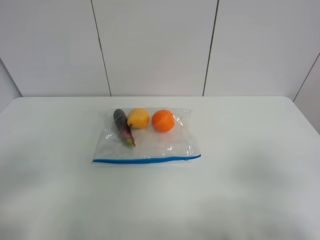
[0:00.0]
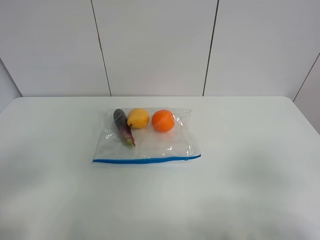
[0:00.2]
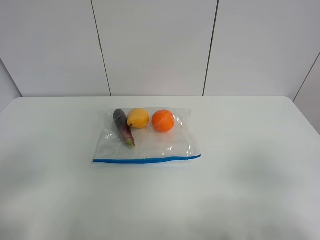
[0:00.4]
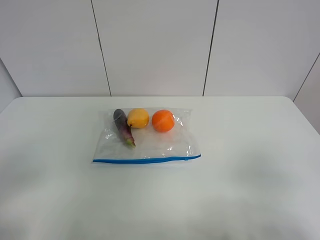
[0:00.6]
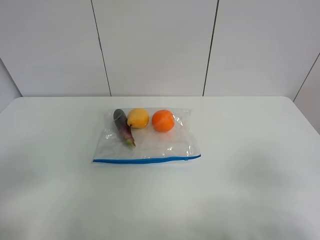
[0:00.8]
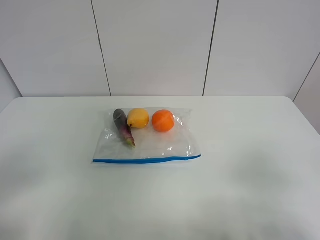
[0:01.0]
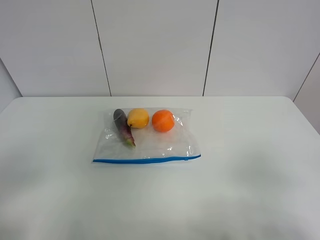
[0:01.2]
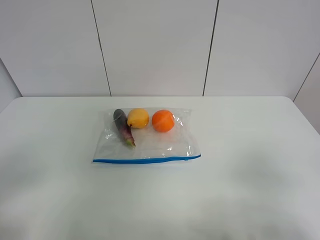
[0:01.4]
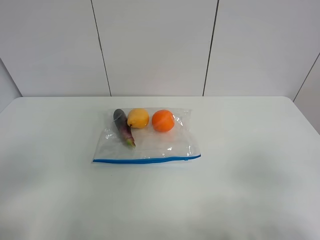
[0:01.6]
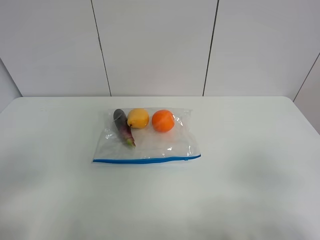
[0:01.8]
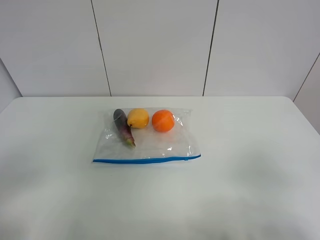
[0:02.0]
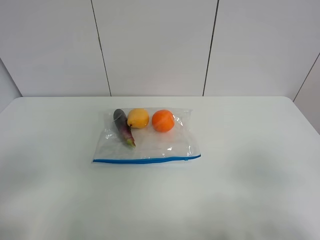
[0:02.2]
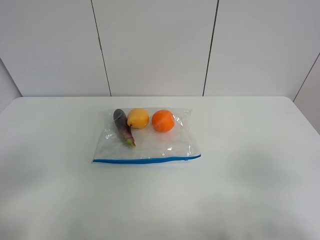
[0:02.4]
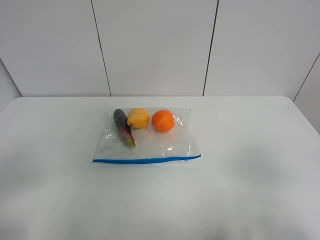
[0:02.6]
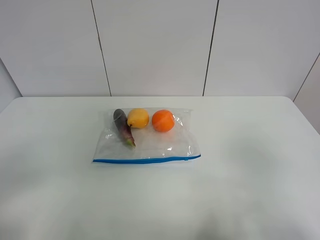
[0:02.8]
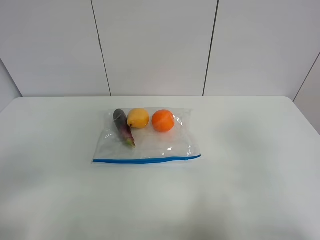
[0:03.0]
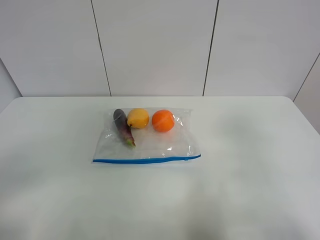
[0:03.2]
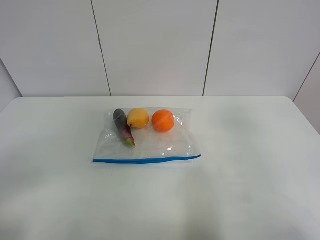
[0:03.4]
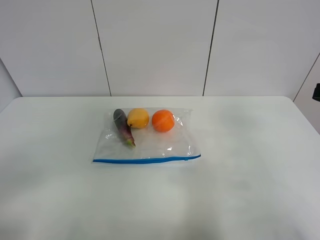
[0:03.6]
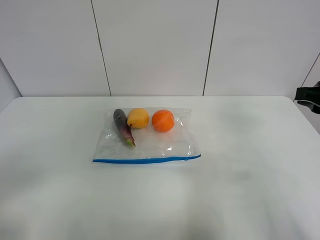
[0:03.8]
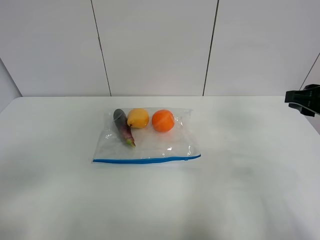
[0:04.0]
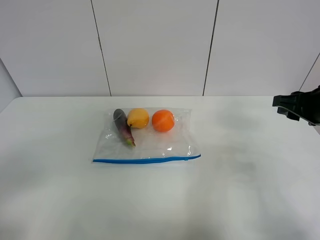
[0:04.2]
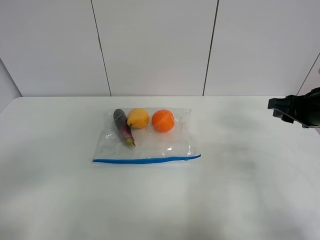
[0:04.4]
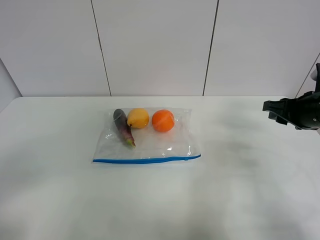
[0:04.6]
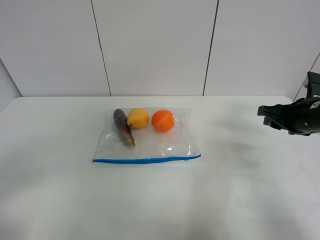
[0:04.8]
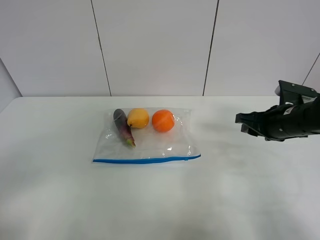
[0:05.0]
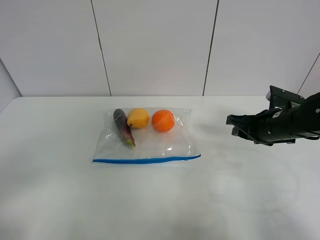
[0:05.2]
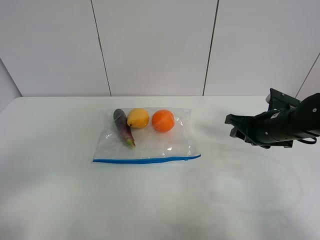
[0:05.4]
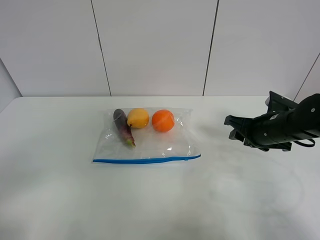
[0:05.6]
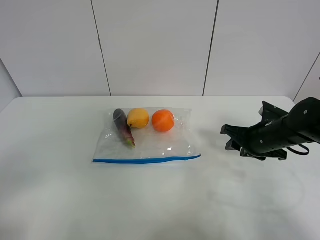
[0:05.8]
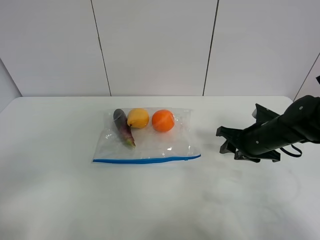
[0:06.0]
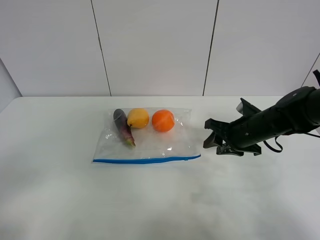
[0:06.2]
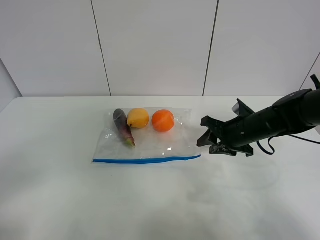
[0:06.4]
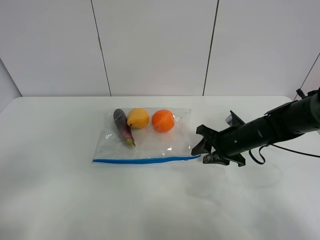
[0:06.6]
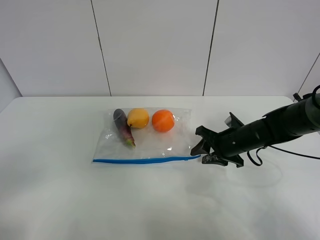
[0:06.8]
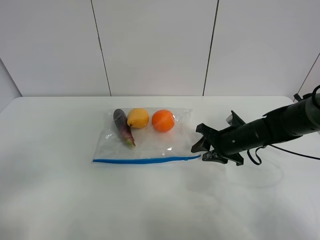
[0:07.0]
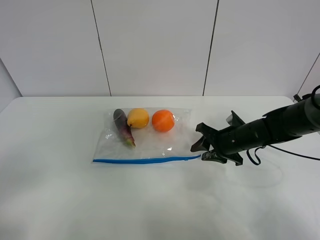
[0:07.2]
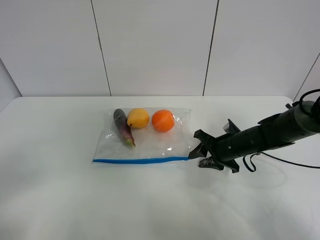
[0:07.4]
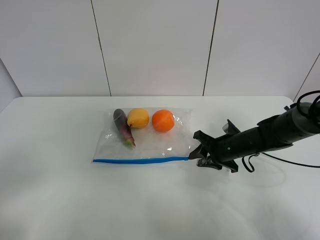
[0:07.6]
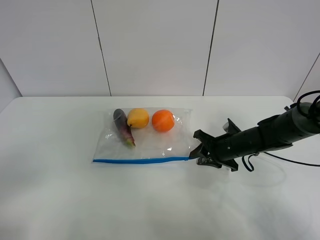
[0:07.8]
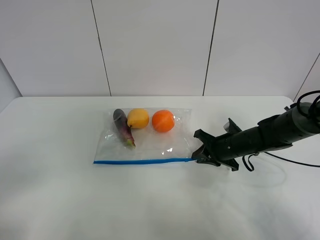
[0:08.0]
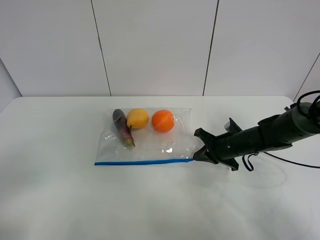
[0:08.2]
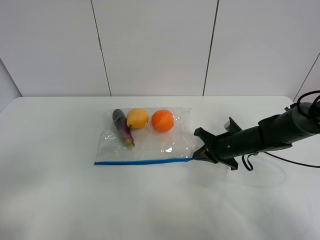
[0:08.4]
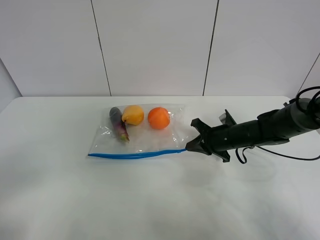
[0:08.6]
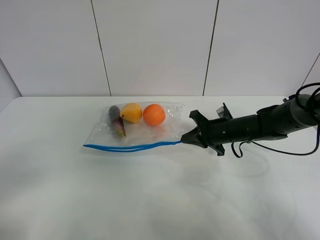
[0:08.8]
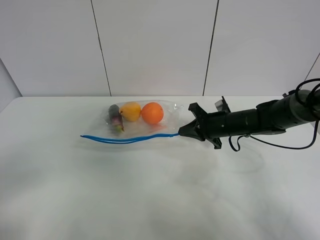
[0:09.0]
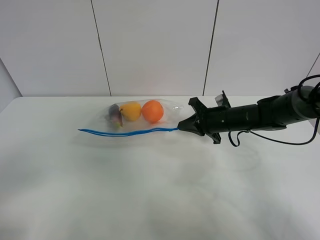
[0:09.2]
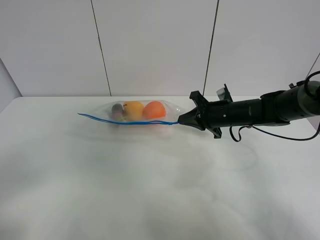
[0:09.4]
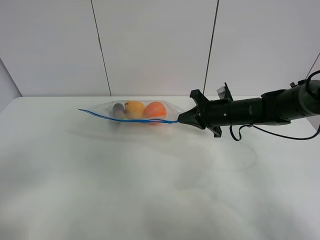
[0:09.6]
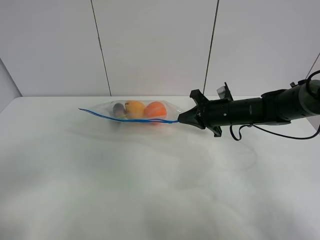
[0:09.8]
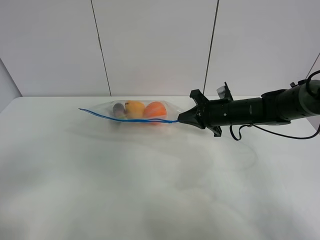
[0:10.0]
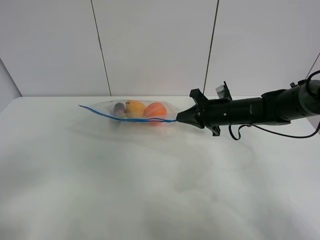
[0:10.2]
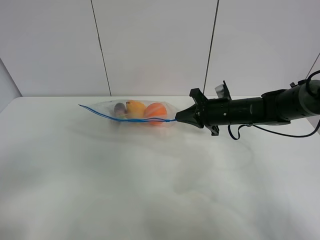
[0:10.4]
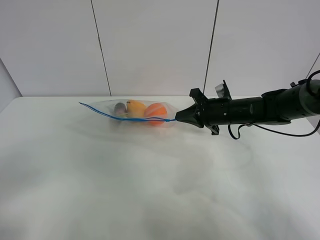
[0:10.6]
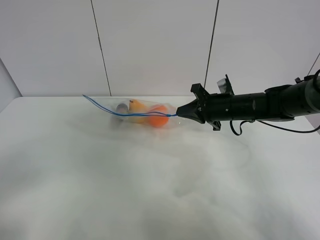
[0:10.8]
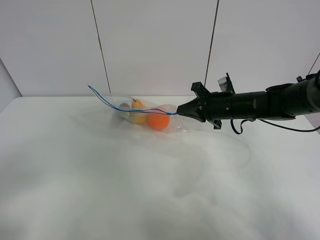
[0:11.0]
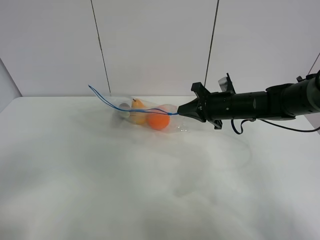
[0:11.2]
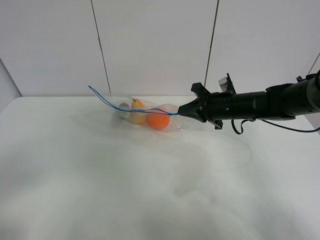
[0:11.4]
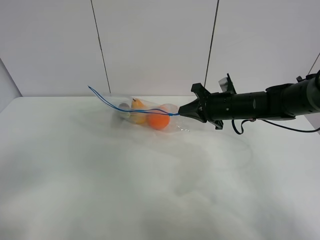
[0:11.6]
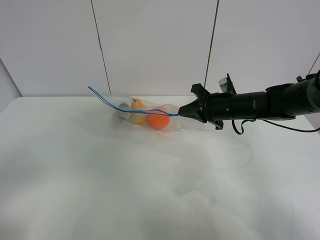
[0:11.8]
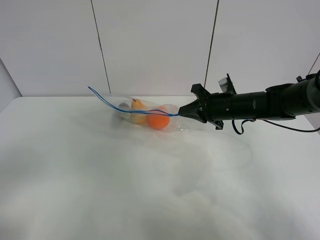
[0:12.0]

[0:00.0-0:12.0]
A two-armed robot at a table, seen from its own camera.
Step, 0:00.0 to 0:08.2: Grasp the fruit bag with right gripper.
Step, 0:08.4 to 0:10.8: Lift the fruit bag with your right gripper.
0:00.0 to 0:01.6: Both grippers stay about where they are.
0:03.0 to 0:04.4: The right gripper moves forward and downward, roughly 20 cm.
0:04.4 to 0:06.0: The right gripper heads downward and to the left, covering roughly 10 cm.
0:06.0 to 0:07.6: The right gripper is displaced downward by about 5 cm.
0:07.6 to 0:09.0: The right gripper shifts by about 5 cm, and closes up.
0:09.0 to 0:12.0: There are only small adjustments of the grippers.

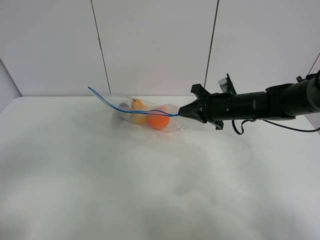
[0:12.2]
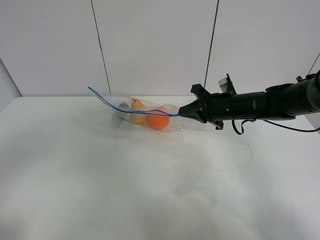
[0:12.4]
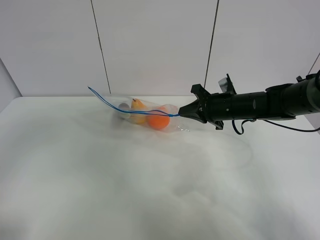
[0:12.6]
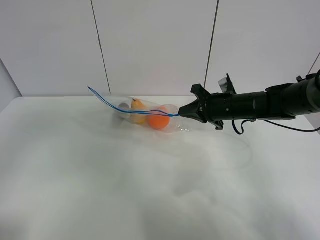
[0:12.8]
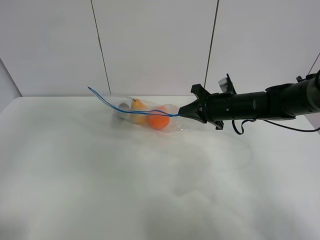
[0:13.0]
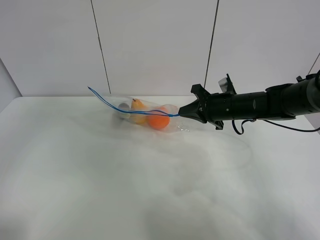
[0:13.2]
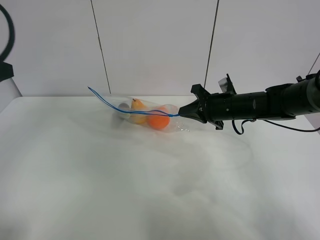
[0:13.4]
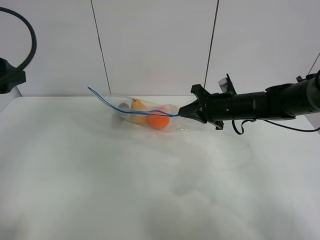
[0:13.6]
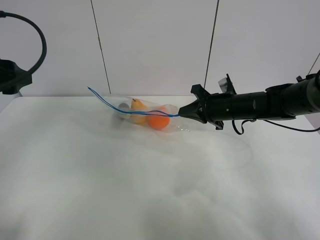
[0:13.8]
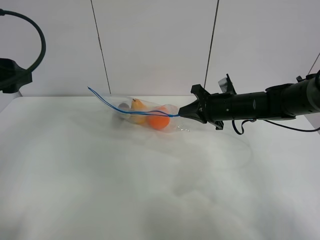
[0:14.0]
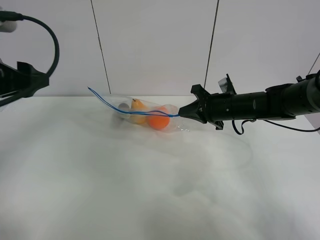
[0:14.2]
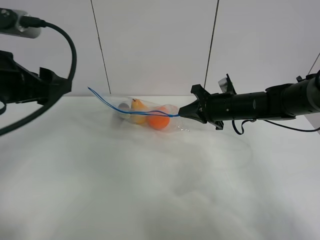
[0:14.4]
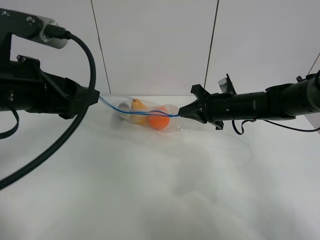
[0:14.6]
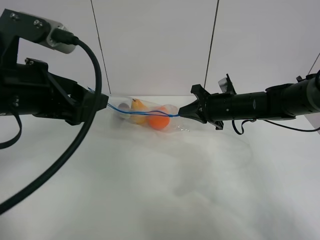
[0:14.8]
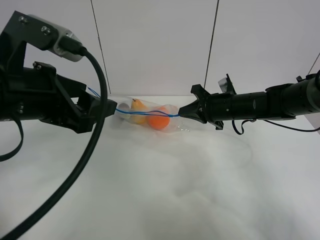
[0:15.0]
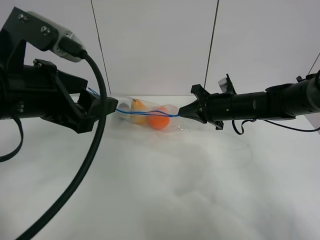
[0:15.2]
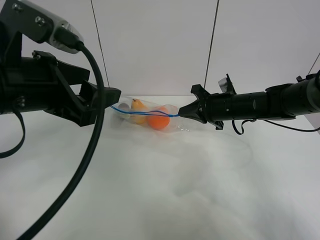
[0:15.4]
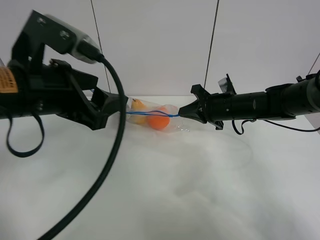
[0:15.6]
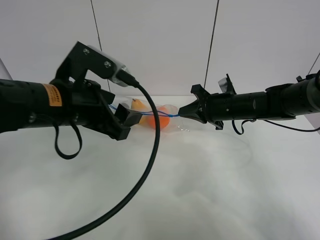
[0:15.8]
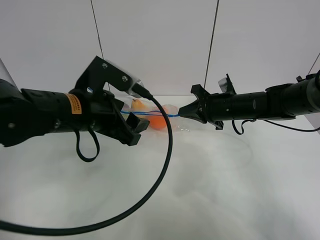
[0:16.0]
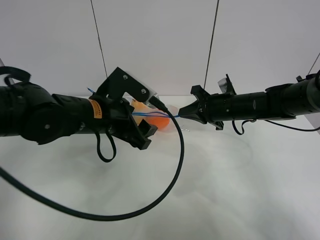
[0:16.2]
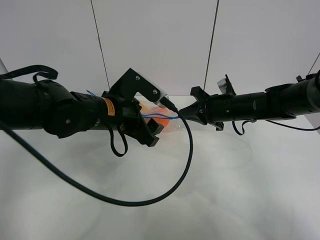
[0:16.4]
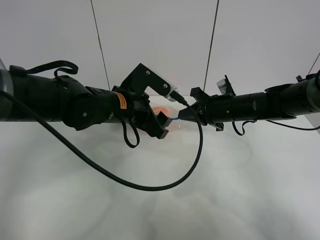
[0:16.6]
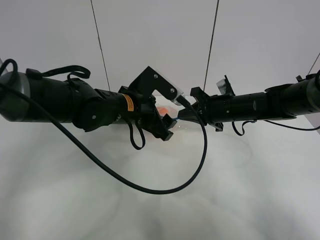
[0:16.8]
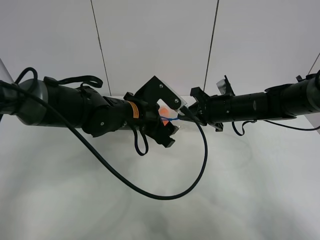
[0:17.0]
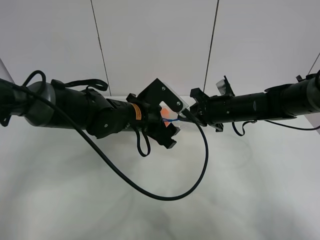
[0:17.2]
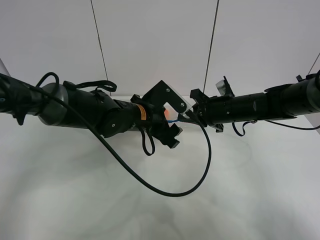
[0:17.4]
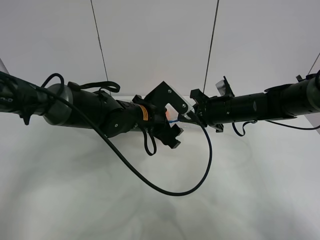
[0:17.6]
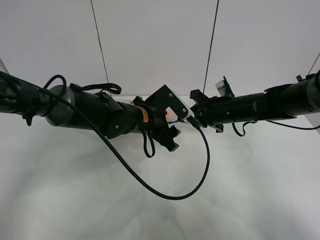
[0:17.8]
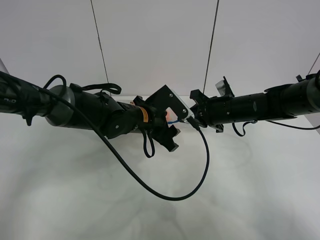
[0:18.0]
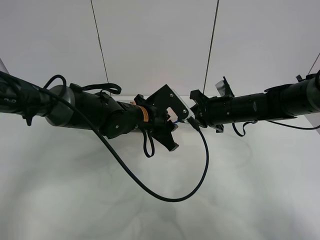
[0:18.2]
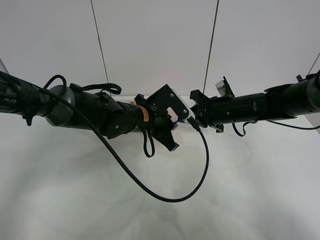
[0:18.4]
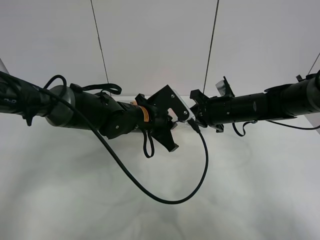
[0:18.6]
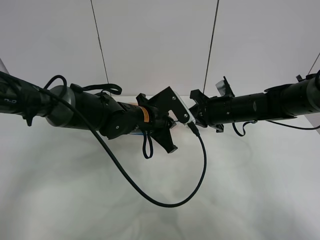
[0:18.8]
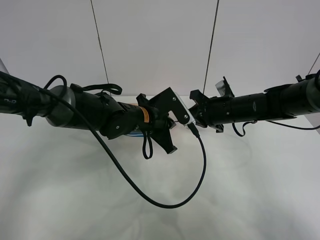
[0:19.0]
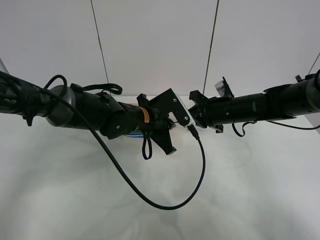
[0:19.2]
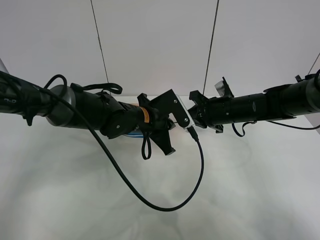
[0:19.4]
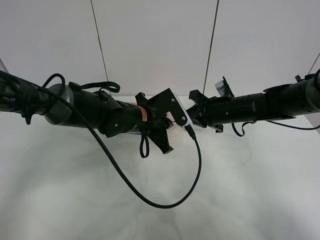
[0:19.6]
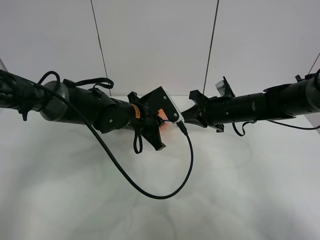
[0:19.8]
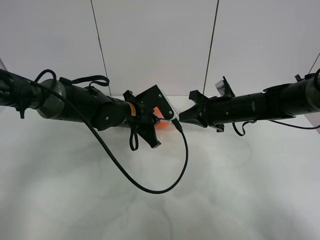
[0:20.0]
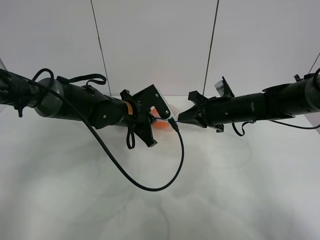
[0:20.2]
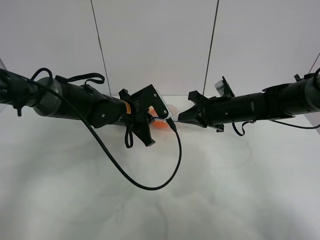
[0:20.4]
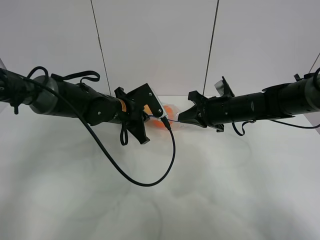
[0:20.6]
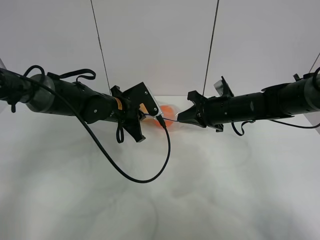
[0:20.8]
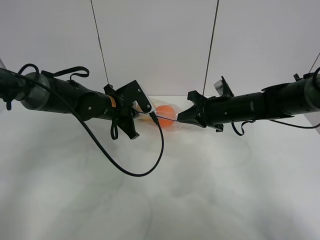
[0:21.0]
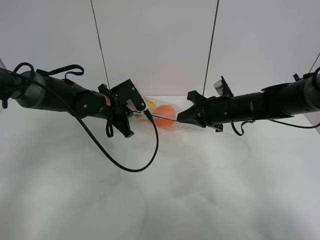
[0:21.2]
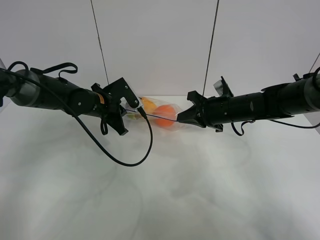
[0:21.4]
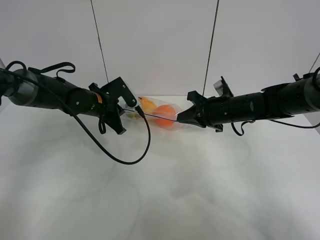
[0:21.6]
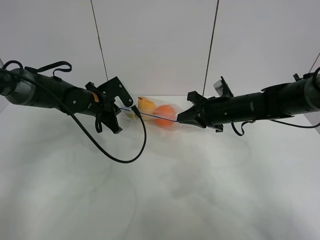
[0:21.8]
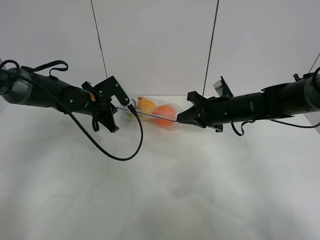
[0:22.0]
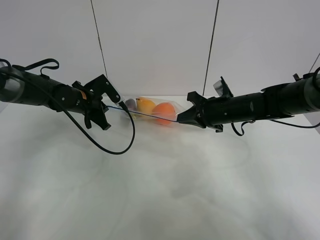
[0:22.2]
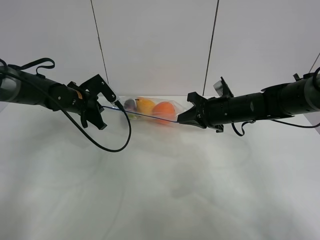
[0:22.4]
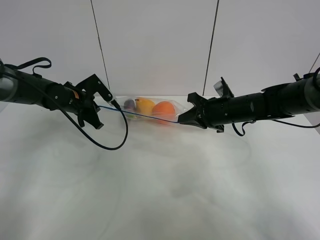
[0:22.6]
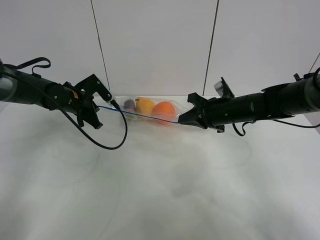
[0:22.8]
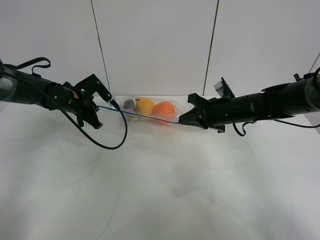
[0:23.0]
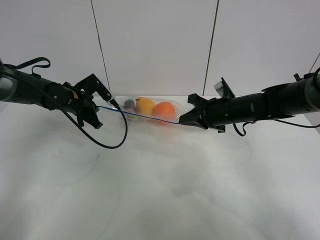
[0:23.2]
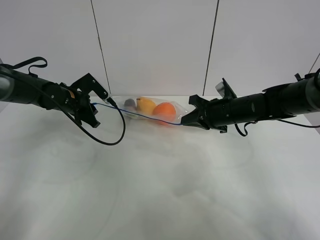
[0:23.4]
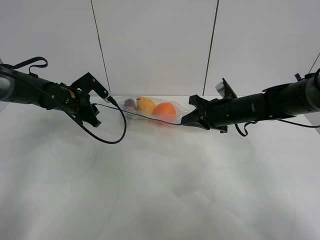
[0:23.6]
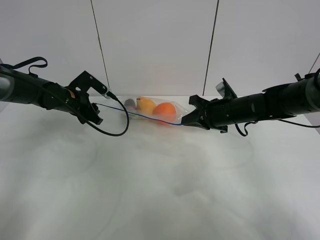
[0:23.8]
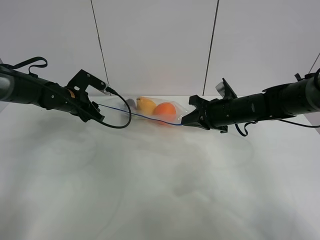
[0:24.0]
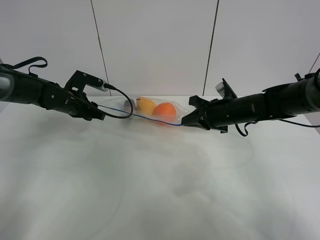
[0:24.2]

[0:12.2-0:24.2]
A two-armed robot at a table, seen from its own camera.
Step, 0:12.2 to 0:23.6: Pull the fruit bag with left gripper.
0:12.2 to 0:13.8: The left gripper moves forward, roughly 20 cm.
0:13.8 to 0:15.2: The left gripper travels to the right by about 15 cm.
0:15.2 to 0:16.6: The left gripper shifts approximately 20 cm forward, downward and to the right.
0:16.6 to 0:18.2: The left gripper heads downward, covering roughly 5 cm, and closes.
0:18.2 to 0:19.8: The left gripper closes up.
0:19.8 to 0:21.2: The left gripper travels to the left by some 10 cm.
0:21.2 to 0:22.6: The left gripper travels to the left by about 10 cm.
0:22.6 to 0:24.2: The left gripper opens up.
